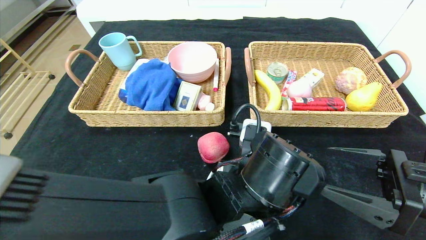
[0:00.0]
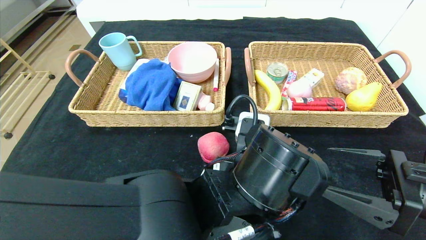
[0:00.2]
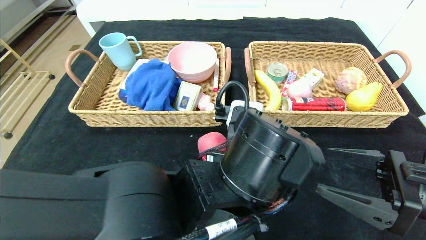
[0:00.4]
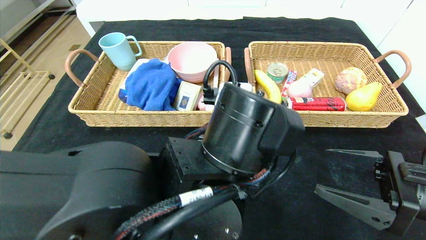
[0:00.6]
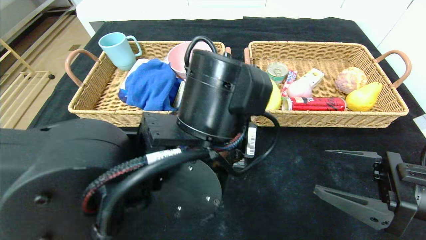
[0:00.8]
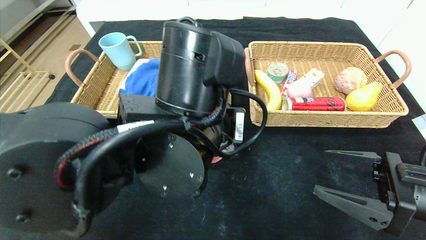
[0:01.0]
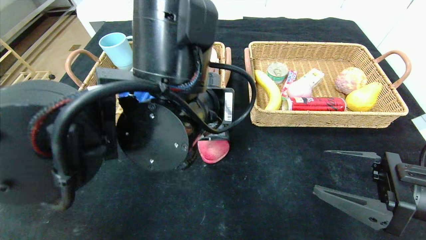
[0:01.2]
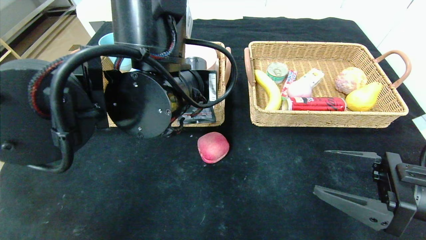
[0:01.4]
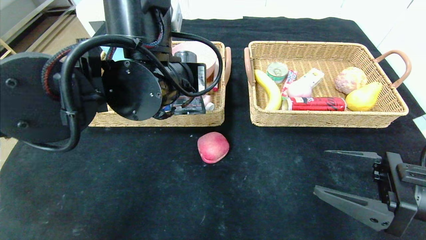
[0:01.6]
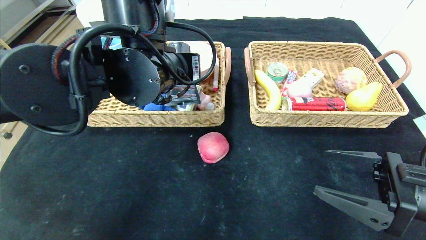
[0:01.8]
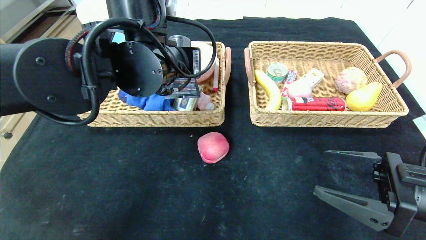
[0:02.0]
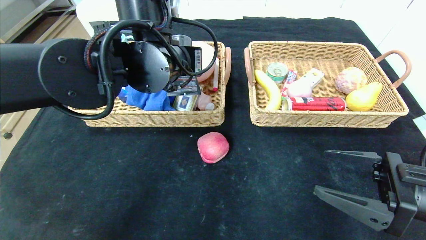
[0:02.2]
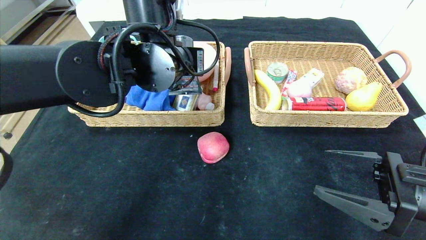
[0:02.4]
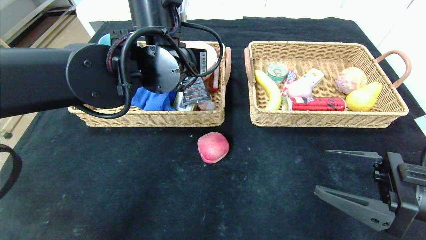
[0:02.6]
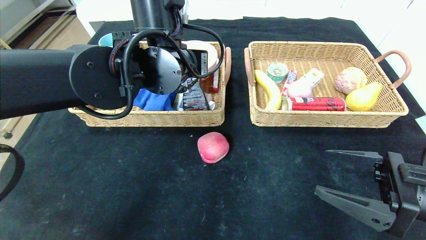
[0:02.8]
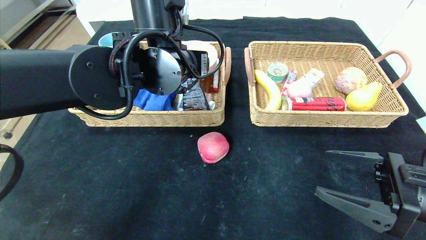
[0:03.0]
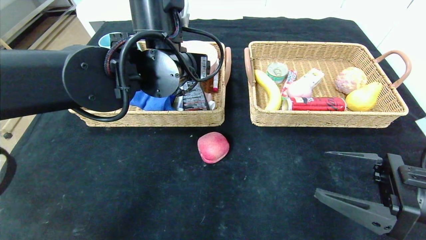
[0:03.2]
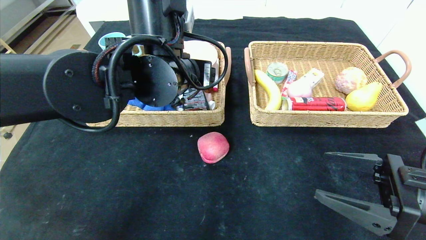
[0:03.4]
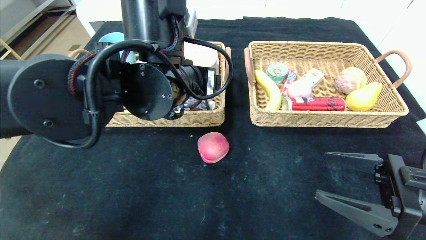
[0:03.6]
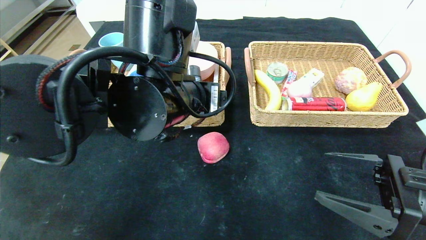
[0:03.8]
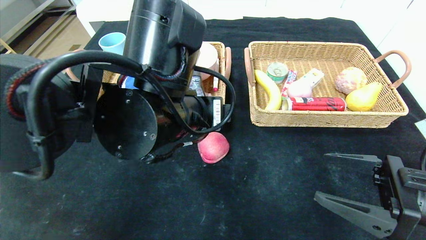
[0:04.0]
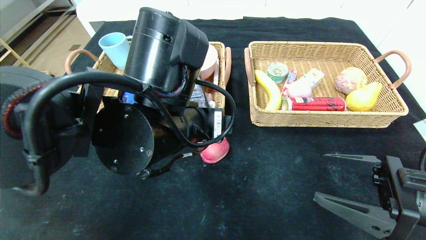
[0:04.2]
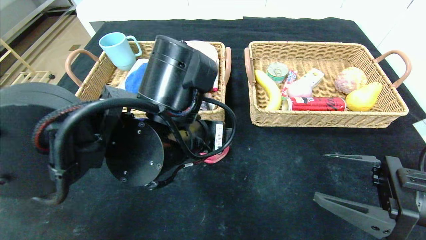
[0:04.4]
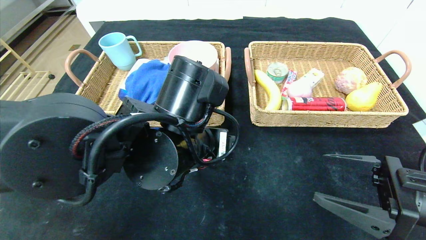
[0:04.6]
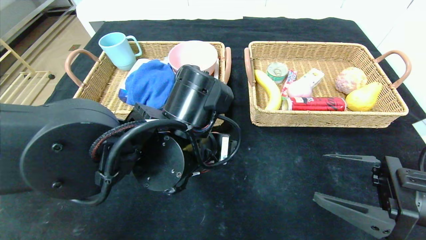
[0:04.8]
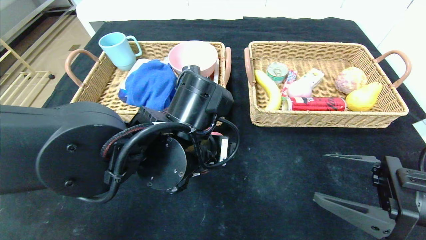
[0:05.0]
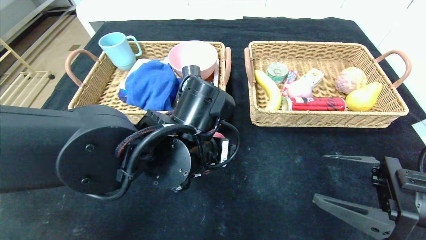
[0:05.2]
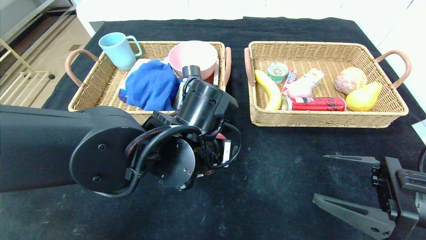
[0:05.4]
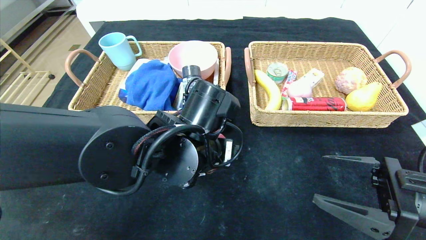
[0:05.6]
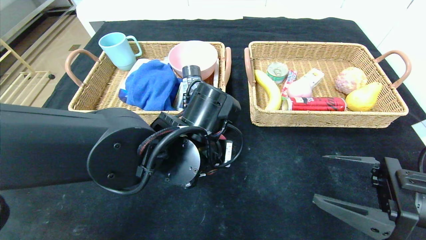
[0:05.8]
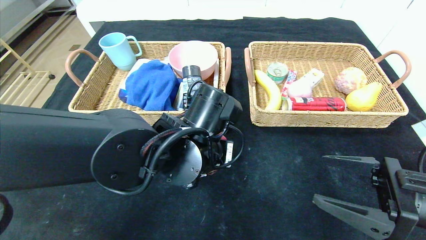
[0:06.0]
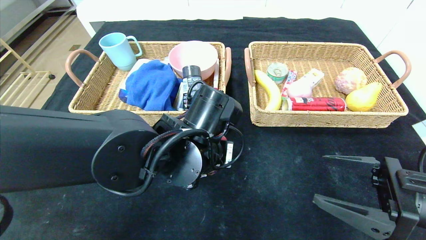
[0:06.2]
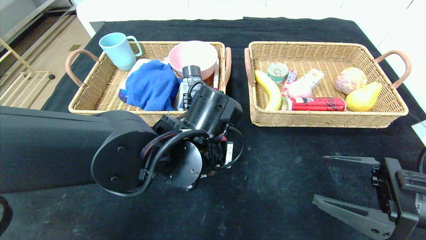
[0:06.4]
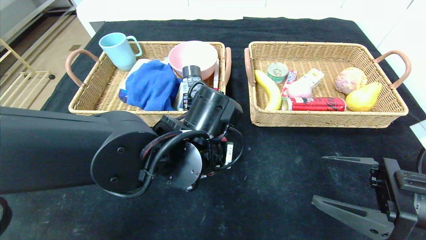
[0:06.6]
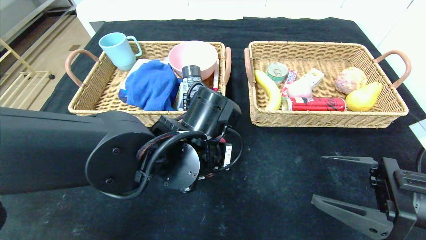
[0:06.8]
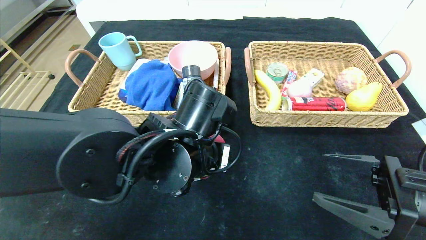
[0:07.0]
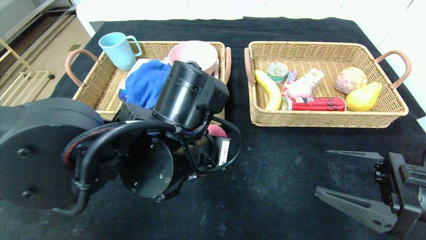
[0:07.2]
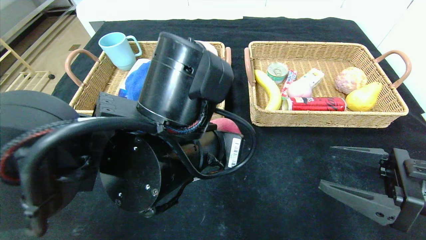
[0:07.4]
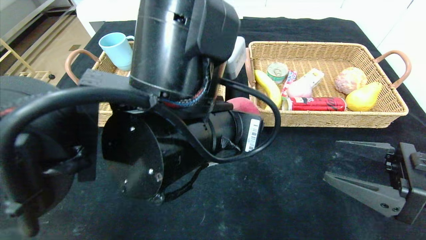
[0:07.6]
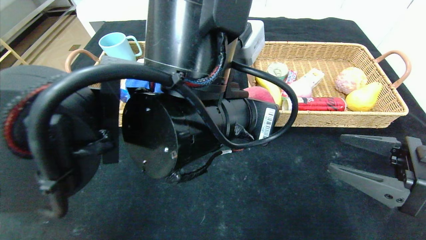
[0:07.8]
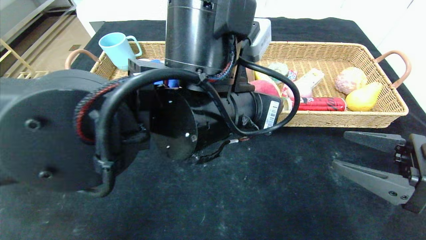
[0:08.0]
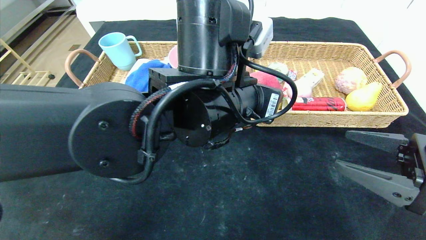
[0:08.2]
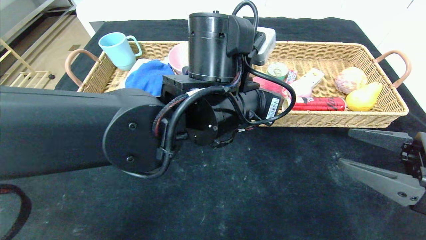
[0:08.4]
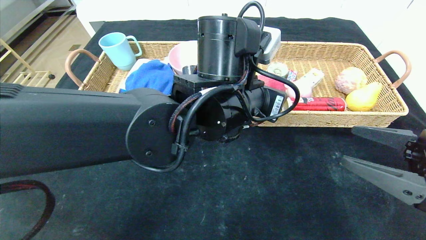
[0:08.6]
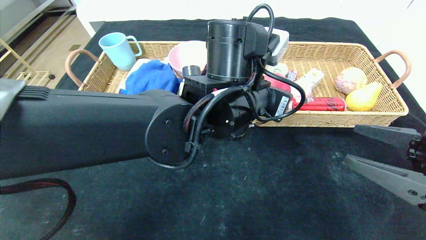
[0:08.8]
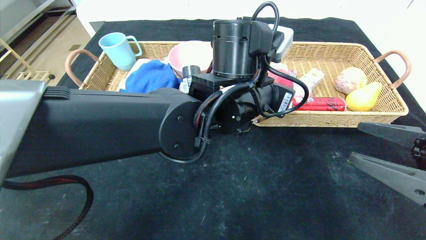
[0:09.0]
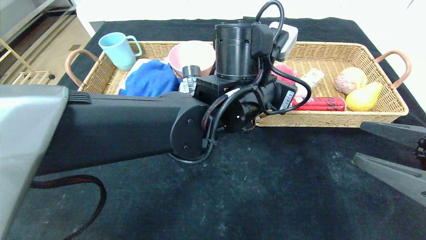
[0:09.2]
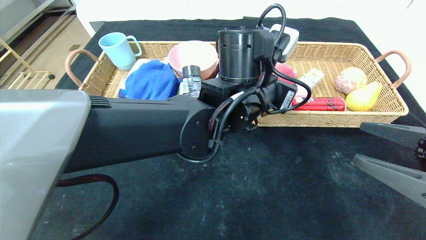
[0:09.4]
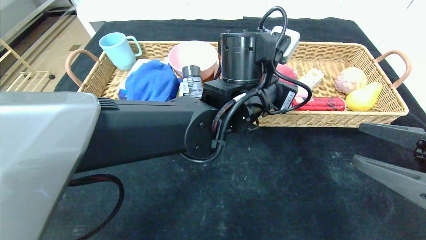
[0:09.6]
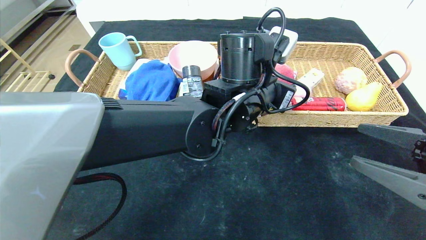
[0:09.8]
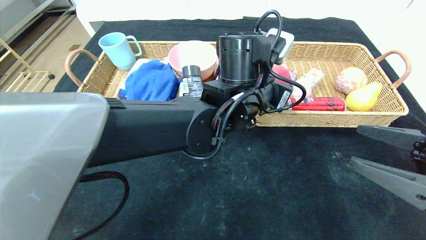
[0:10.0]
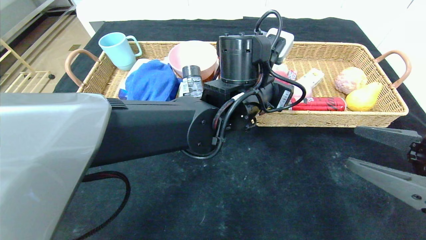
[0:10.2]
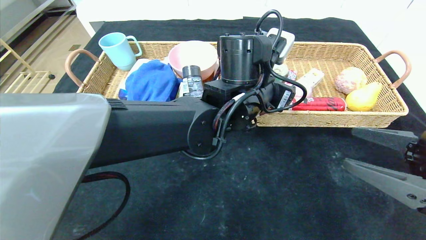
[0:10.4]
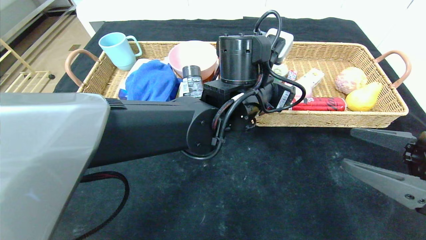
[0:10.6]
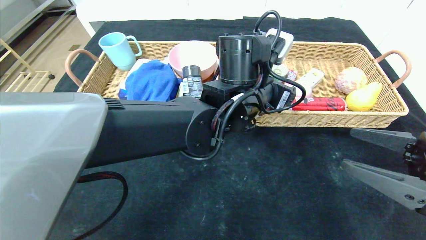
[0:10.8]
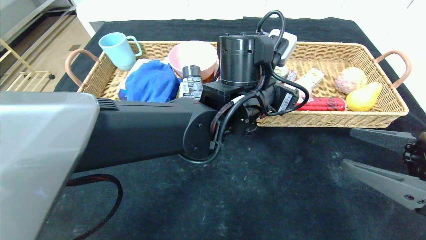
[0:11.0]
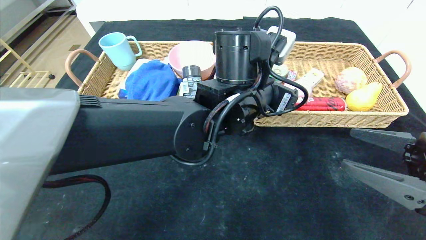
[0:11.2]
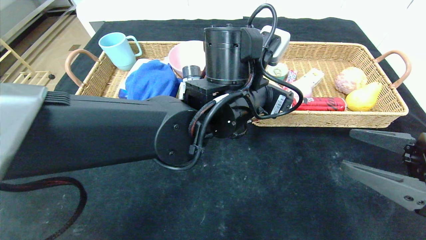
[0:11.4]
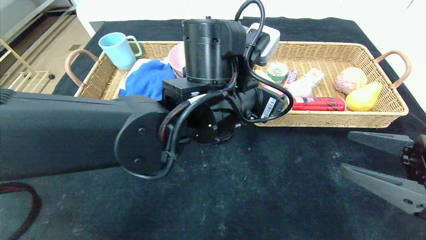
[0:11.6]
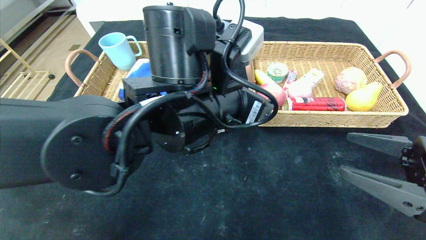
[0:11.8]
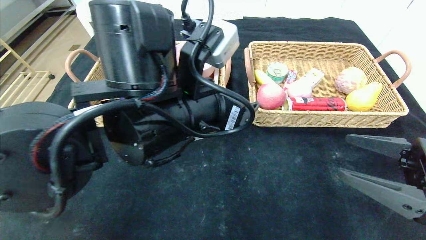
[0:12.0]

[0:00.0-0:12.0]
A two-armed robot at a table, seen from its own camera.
Step, 0:00.0 to 0:02.6: Grasp the soft cleanser and put it in the left basket.
Step, 0:02.8 to 0:10.4: Grasp the peach and put it in the right basket.
0:00.0 to 0:01.6: The left gripper shifts about 20 cm upward, to the left and forward.
0:01.6 to 0:03.0: The left gripper travels forward by roughly 5 cm, and opens up.
0:03.0 to 0:04.4: The left gripper shifts approximately 10 cm backward and downward.
0:04.4 to 0:06.0: The left gripper moves some 5 cm.
0:06.0 to 0:07.6: The left gripper moves upward and backward, some 10 cm.
0:07.6 to 0:09.0: The left gripper heads forward and to the right, covering some 10 cm.
0:10.4 to 0:12.0: The left gripper heads to the left and backward, covering about 15 cm.

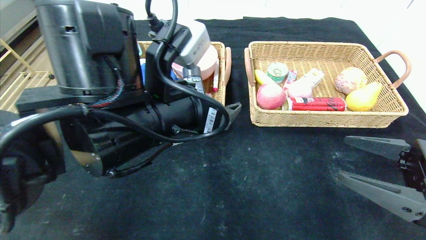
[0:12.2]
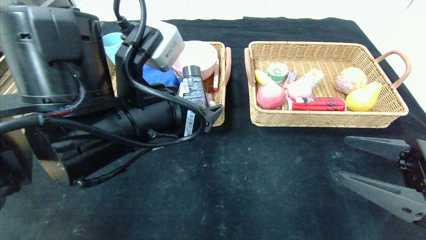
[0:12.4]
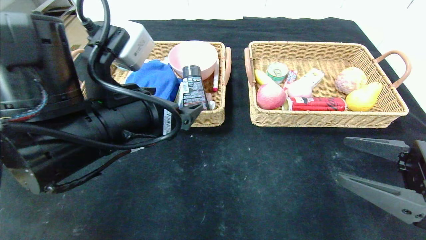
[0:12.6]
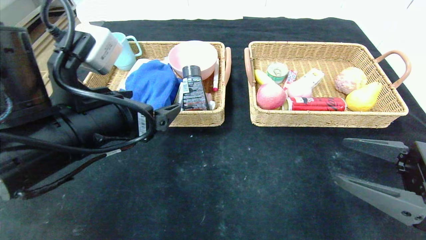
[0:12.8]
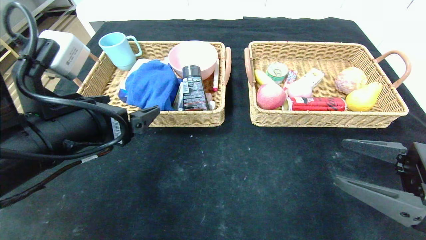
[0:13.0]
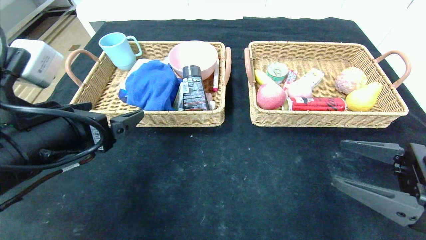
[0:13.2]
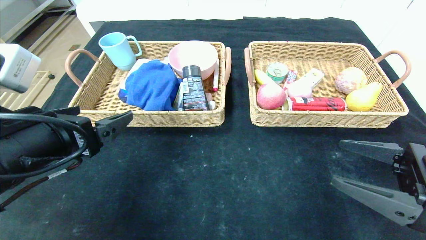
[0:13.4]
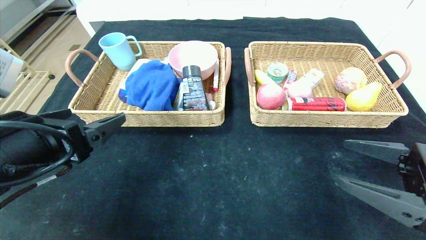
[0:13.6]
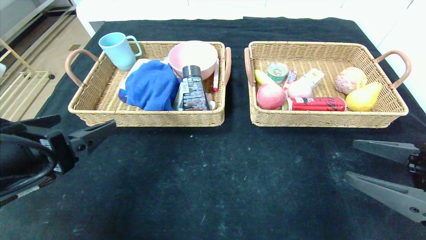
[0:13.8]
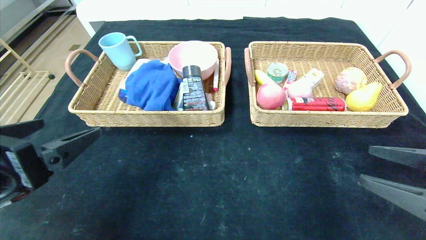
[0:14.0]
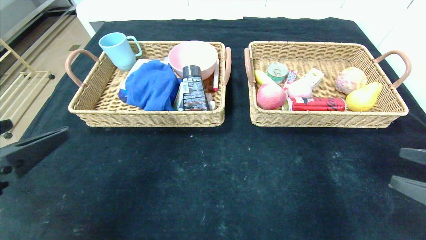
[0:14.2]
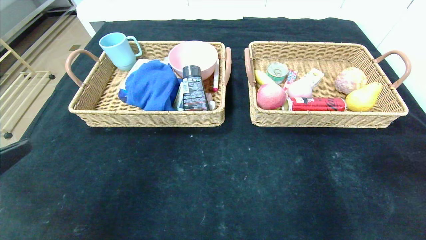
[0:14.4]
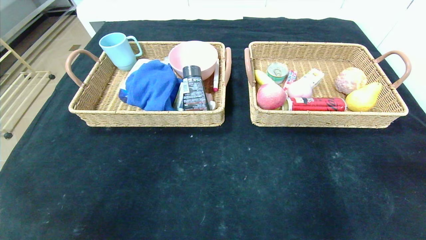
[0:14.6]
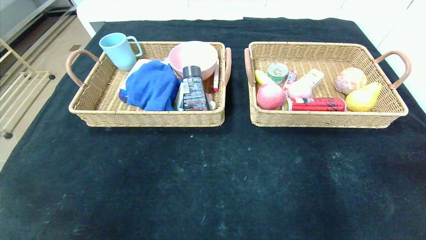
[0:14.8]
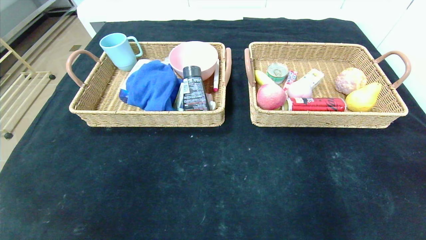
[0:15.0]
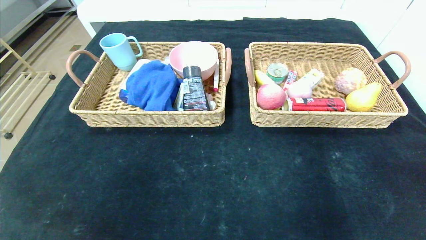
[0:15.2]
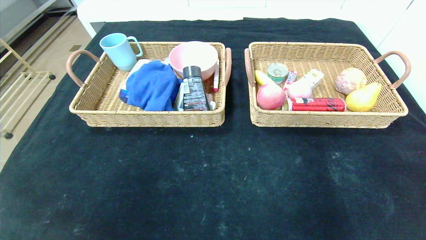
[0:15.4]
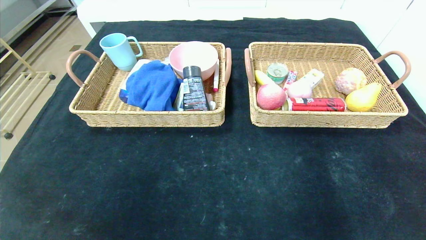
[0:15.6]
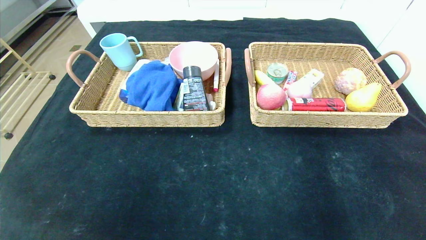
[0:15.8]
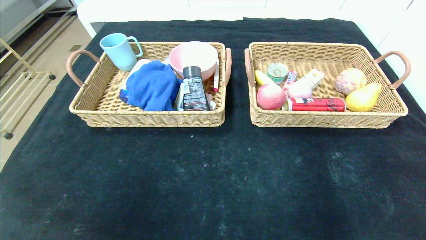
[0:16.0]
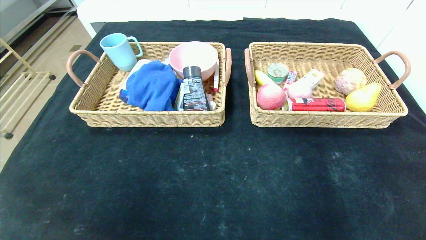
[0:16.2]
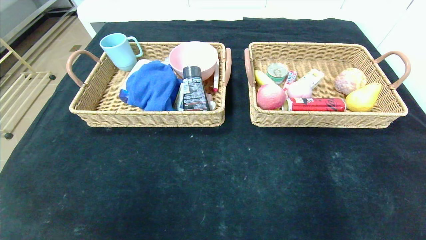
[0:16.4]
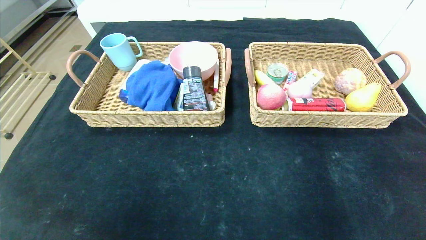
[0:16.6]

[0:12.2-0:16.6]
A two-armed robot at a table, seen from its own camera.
0:12.2 to 0:13.6: The left gripper goes roughly 15 cm to the left and backward.
0:13.6 to 0:15.2: Both grippers move backward, approximately 20 cm.
